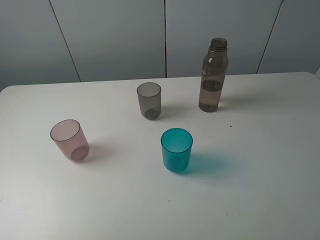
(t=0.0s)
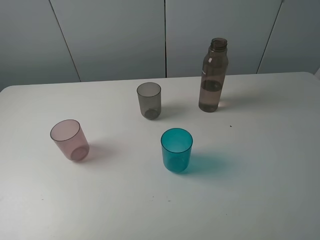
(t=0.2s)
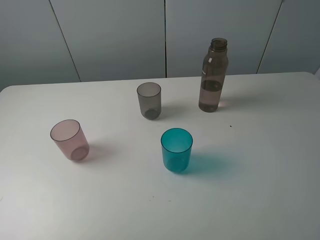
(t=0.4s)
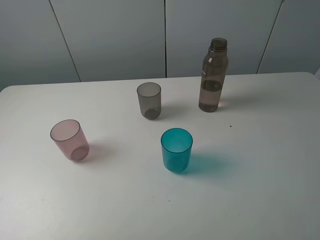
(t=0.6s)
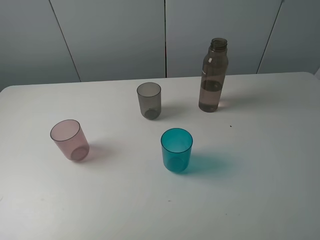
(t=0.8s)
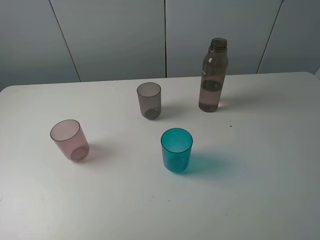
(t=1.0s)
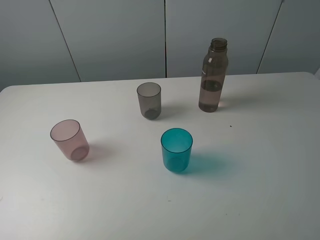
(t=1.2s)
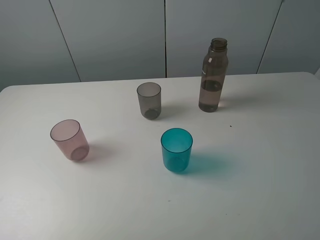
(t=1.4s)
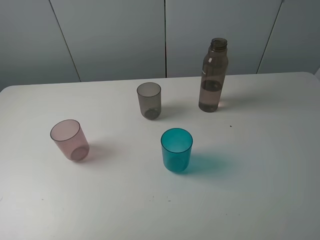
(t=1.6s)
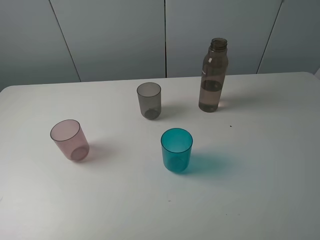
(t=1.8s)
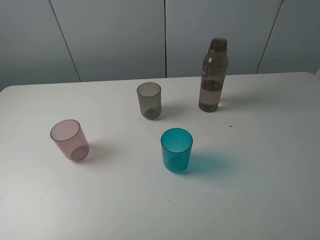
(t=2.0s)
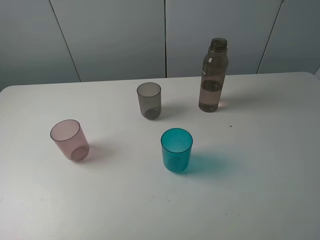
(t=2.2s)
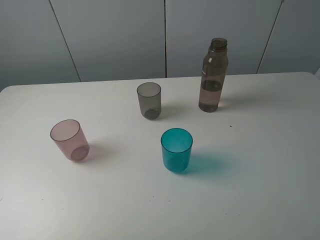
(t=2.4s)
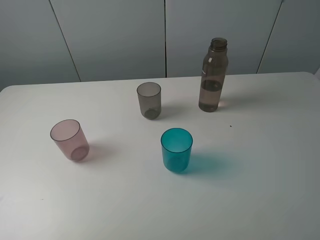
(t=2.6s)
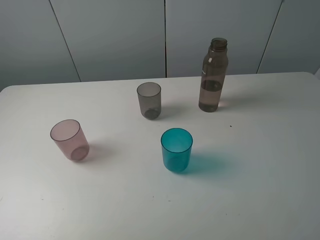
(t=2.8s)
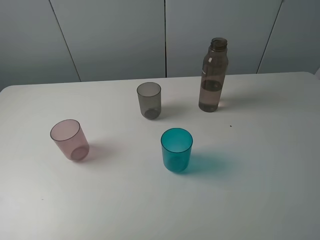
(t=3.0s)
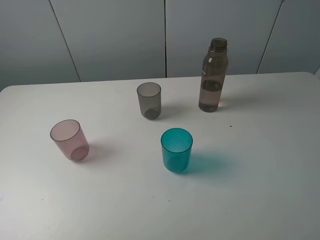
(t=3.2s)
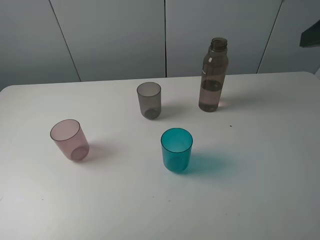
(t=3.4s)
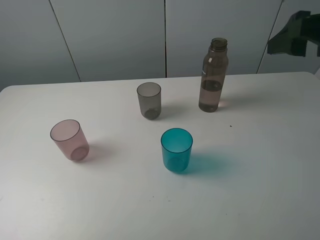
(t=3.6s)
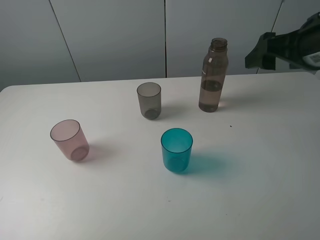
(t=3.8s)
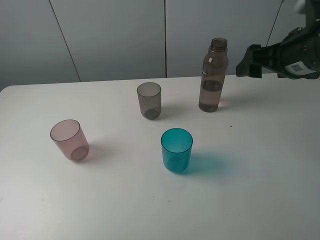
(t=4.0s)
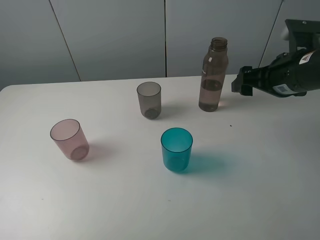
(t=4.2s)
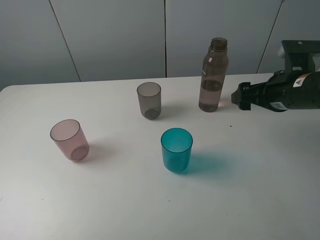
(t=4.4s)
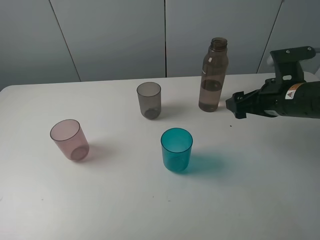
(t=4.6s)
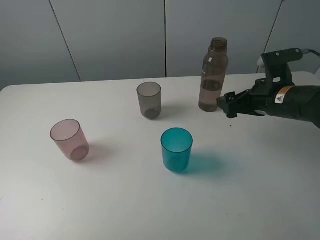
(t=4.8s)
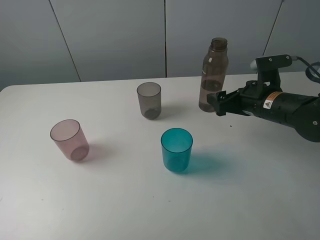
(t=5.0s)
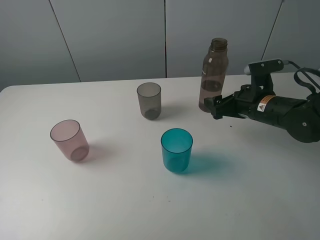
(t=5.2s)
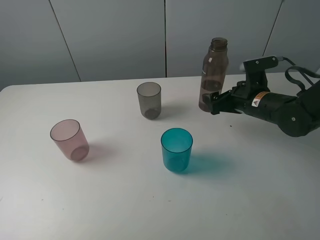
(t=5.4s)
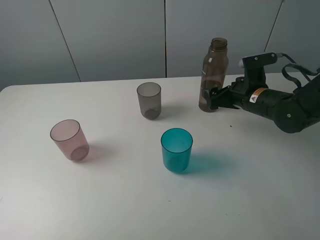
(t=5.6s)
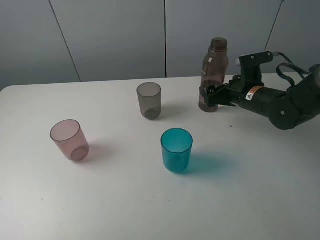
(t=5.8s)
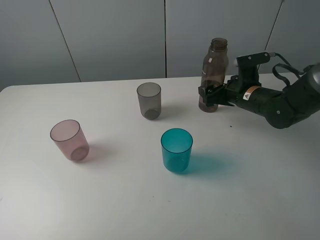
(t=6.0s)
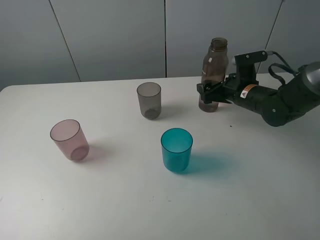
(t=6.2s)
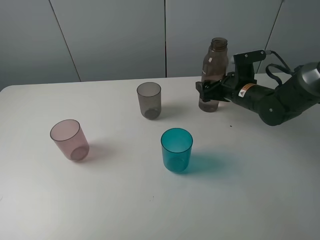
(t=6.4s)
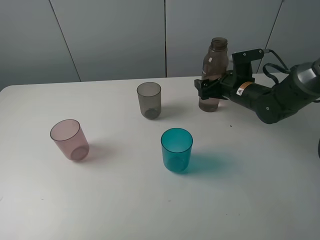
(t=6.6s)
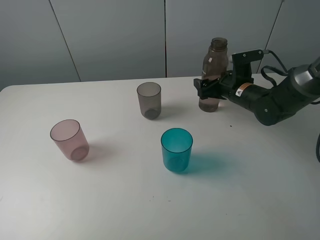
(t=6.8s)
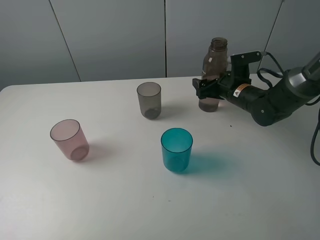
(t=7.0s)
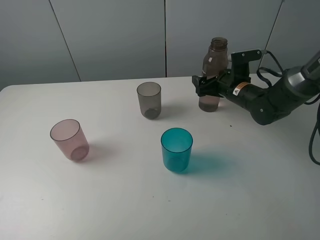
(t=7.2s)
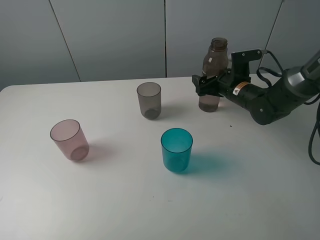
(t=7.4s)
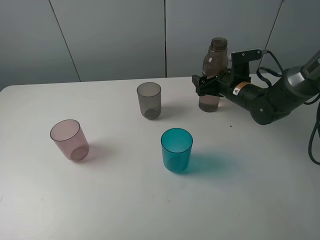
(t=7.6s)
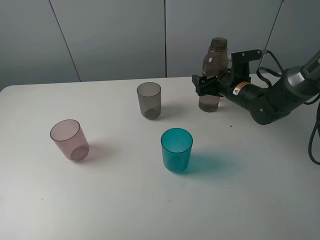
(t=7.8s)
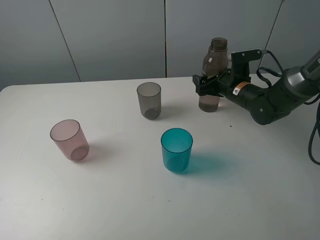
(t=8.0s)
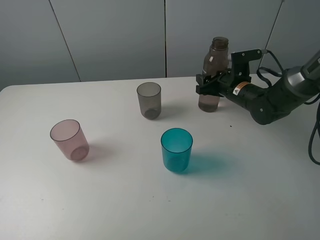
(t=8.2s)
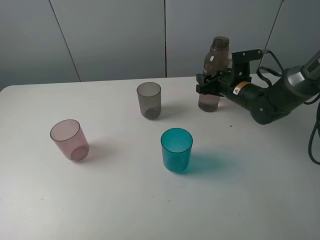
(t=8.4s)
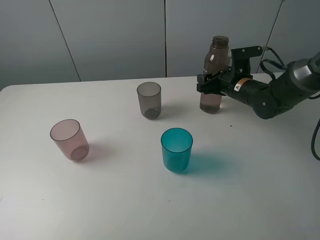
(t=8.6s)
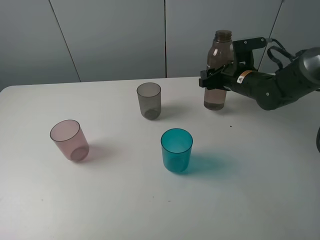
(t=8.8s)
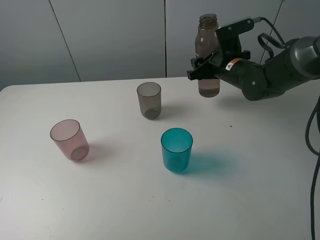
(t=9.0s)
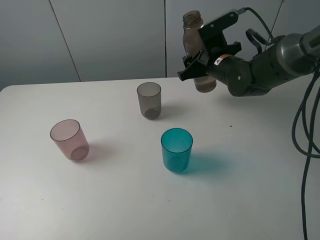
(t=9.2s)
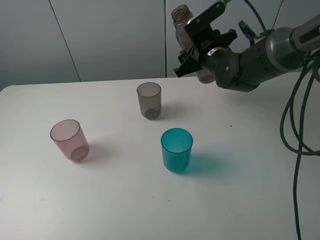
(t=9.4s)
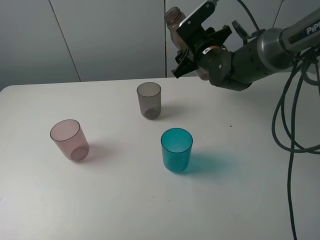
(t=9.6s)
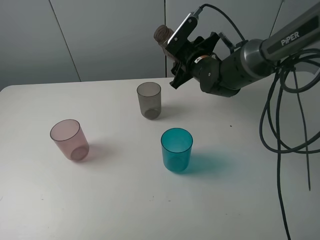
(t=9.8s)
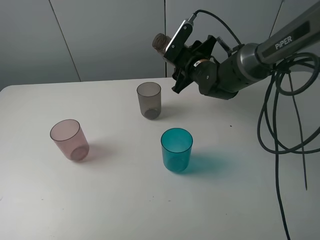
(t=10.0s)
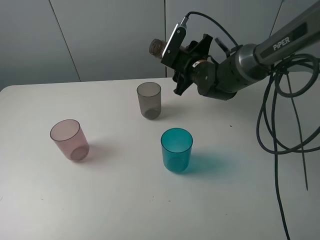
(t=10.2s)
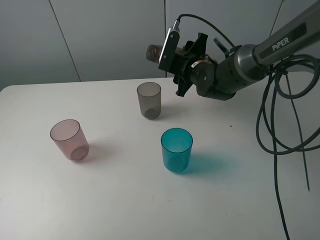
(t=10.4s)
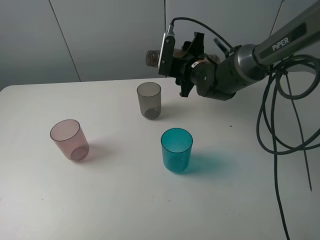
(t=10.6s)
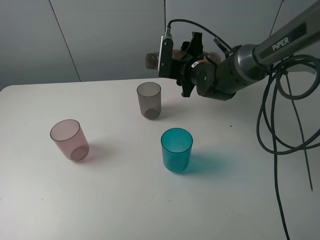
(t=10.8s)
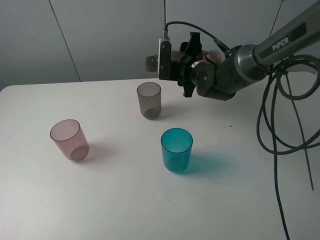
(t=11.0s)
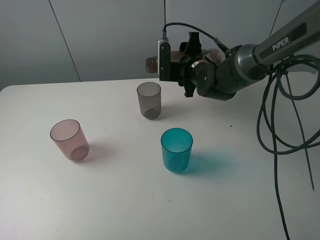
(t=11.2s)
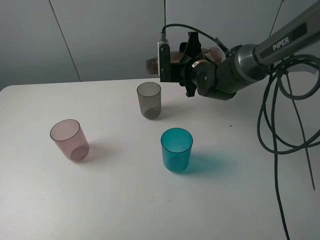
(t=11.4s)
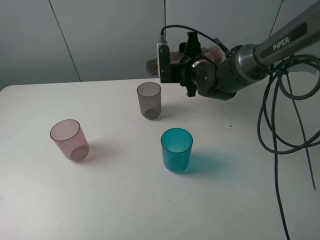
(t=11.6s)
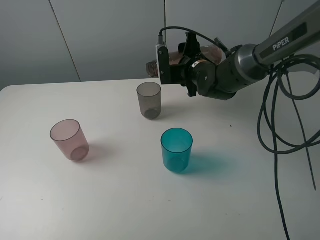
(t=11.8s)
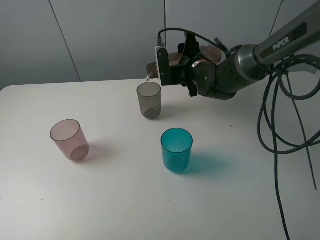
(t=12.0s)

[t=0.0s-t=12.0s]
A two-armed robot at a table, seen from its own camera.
Task of the whole recording: pick up the bottle filled with water and pour water into the middle cup of the three cups.
Step, t=0.0s to t=7.8s: Grasp the brown bottle with the right gripper.
t=0.0s to t=1.6s: The two grippers keep their place.
t=3.0s to t=4.4s: The right gripper is displaced downward and forward by roughly 25 cm.
t=4.4s to t=6.0s: The right gripper travels forward and downward by roughly 10 cm.
t=6.0s to t=7.6s: The grippers move only a little.
t=7.6s to t=9.0s: The right gripper is displaced upward by roughly 5 cm, and closes up.
t=9.0s to t=10.4s: The right gripper goes some 5 cm to the left.

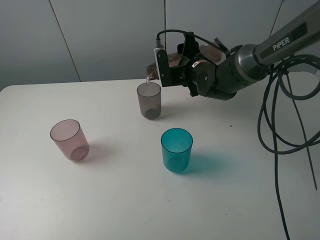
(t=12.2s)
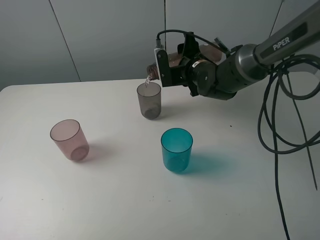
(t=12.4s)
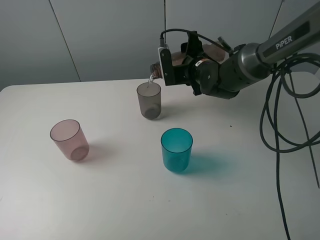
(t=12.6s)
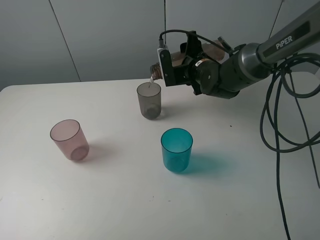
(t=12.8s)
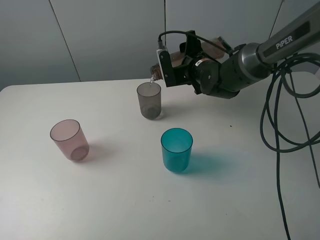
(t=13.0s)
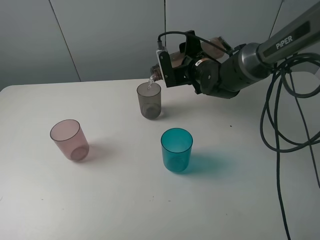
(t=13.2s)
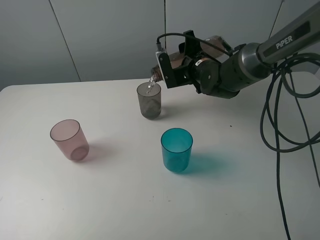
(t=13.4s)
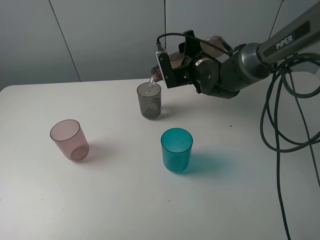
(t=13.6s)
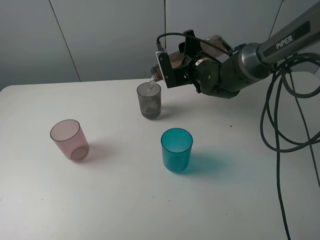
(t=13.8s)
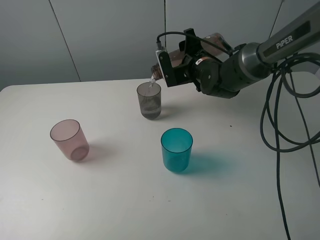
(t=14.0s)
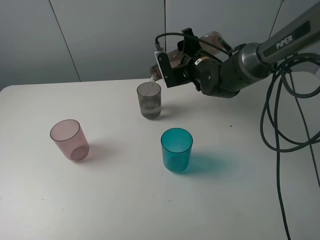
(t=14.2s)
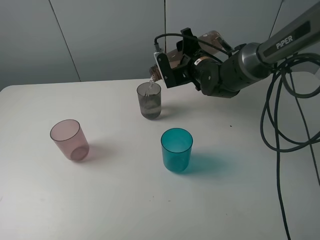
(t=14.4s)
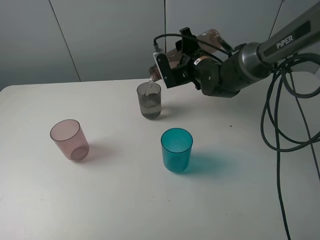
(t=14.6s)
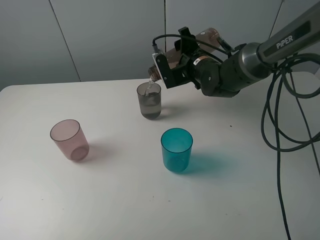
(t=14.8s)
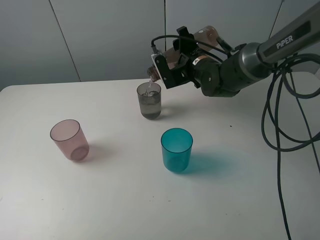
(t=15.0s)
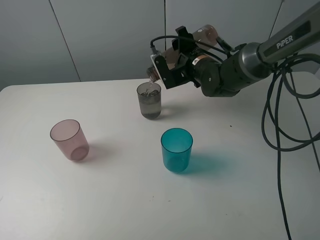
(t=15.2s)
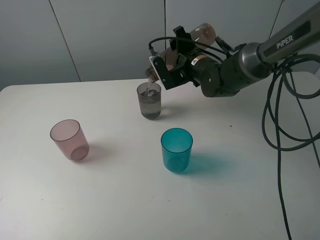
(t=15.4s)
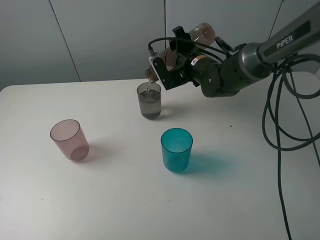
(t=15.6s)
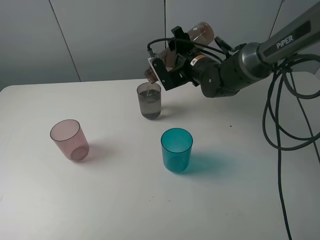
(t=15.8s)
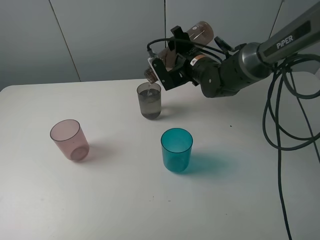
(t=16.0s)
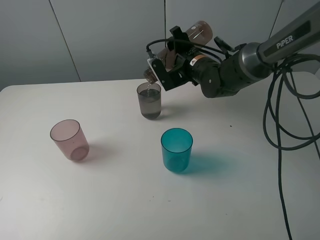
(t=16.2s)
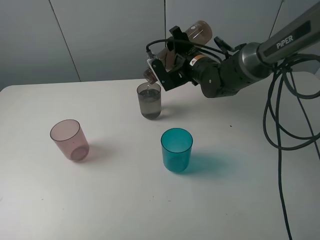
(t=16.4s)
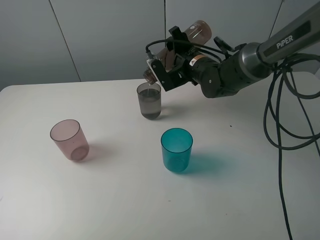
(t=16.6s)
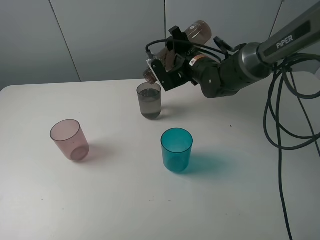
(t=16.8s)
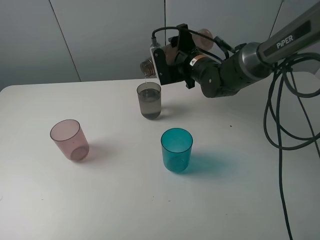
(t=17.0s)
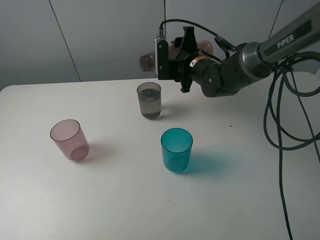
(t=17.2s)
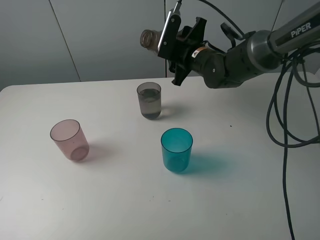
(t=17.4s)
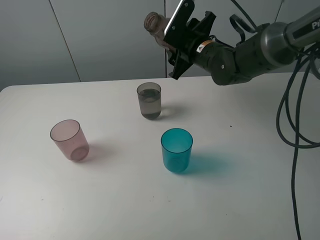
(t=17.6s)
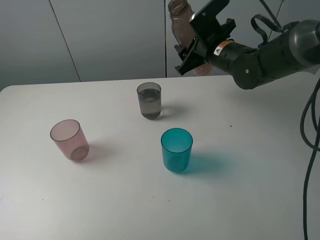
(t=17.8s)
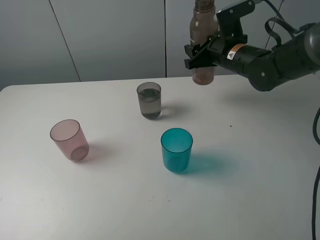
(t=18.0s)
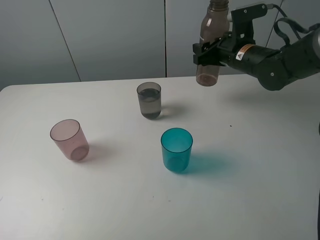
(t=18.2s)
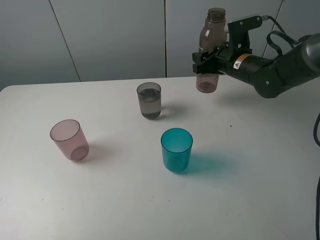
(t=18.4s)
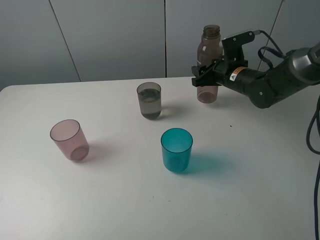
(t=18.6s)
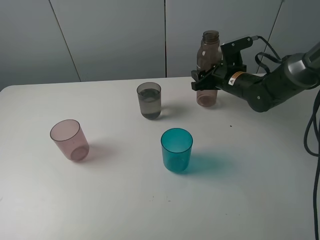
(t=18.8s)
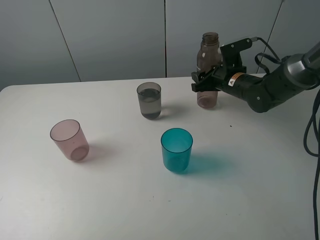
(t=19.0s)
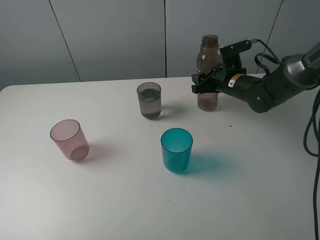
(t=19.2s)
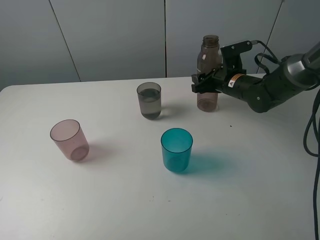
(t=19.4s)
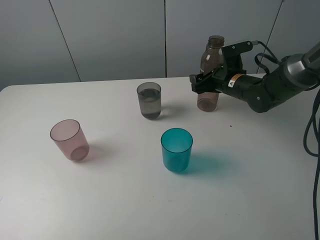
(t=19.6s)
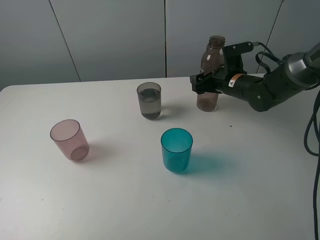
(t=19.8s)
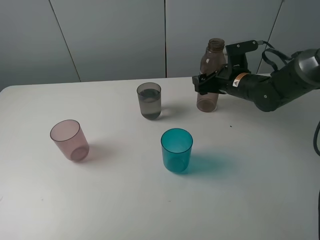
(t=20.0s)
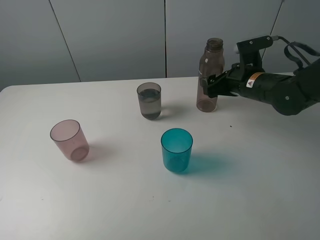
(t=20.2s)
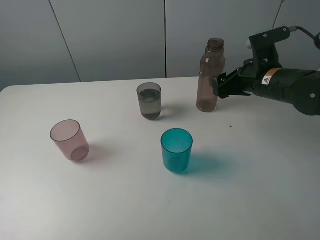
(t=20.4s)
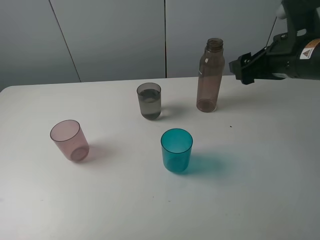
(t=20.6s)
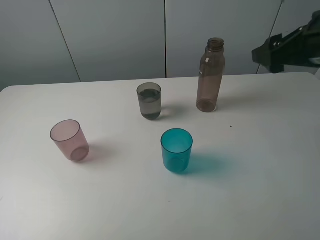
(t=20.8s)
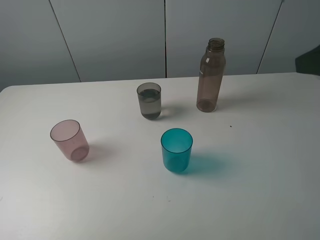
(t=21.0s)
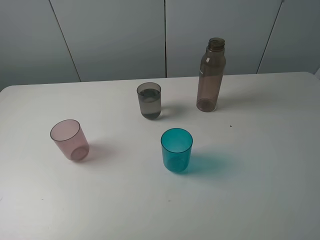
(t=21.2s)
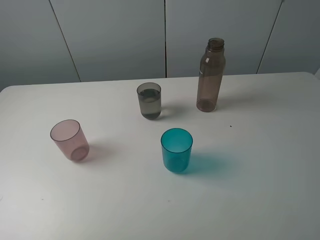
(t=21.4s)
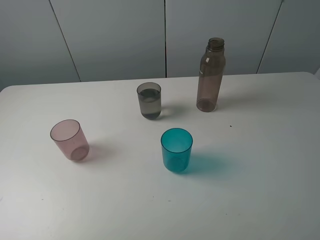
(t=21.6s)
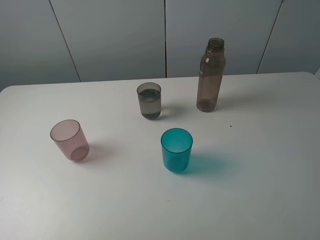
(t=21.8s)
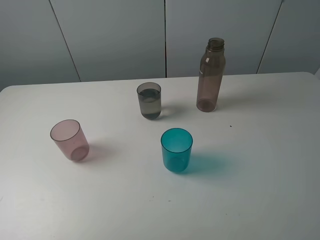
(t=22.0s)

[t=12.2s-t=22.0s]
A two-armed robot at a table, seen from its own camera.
Task of the whole recording: pick up the bottle filled with water and pour water into the middle cup of the three cups.
Step, t=14.0s to t=20.4s: Place the brown bottle with the right gripper.
t=12.2s to t=15.0s: The grippers make only small movements.
t=15.0s to t=16.4s: The grippers make only small movements.
t=16.4s to t=17.8s: The right gripper ends up approximately 5 cm from where it was.
t=17.8s to t=19.2s: The right gripper shifts roughly 10 cm downward.
t=19.2s to t=20.6s: The right gripper shifts about 20 cm upward and backward, and opens up.
t=20.6s to t=22.0s: The right gripper moves backward, approximately 25 cm.
